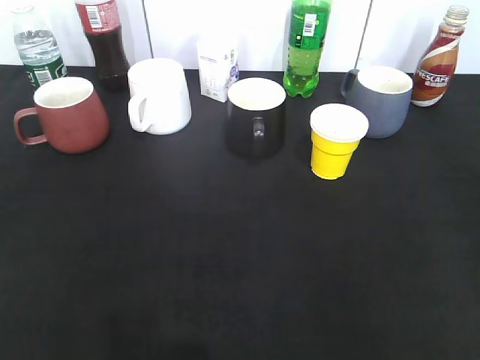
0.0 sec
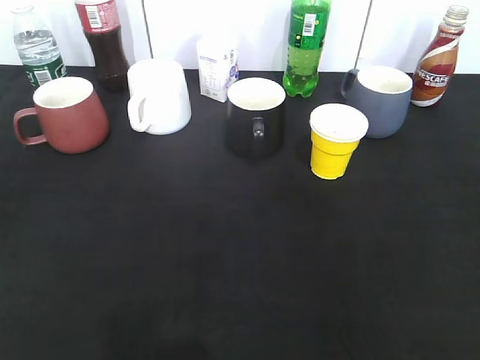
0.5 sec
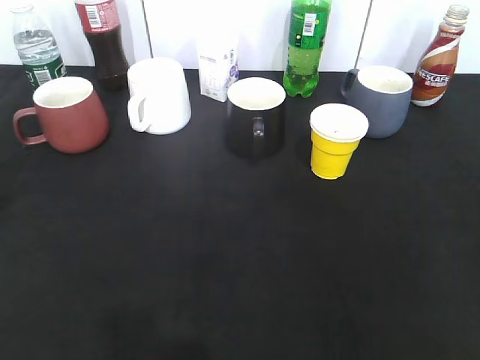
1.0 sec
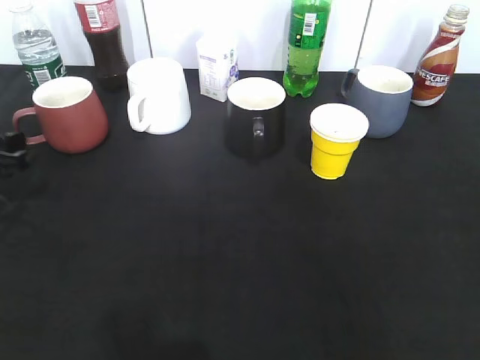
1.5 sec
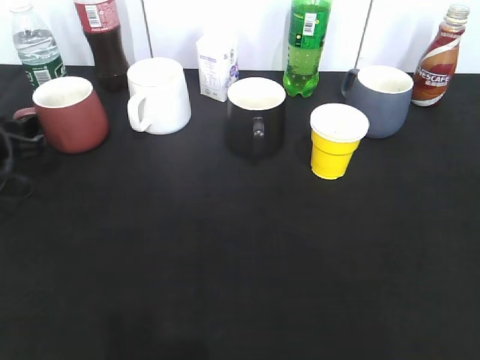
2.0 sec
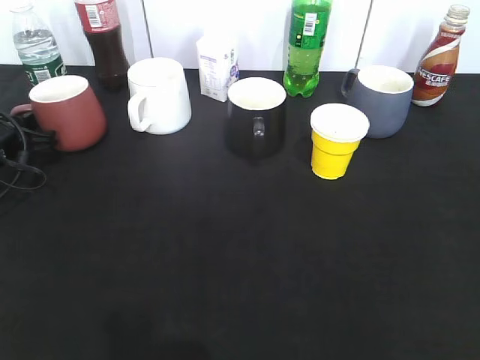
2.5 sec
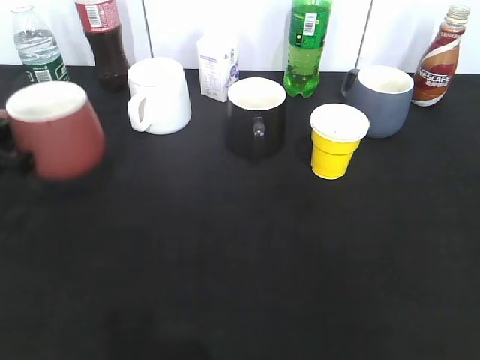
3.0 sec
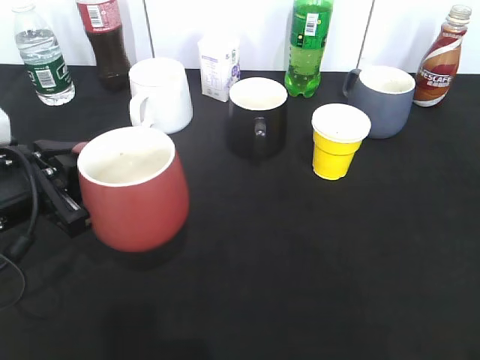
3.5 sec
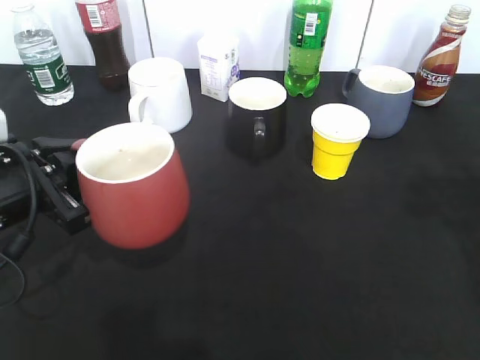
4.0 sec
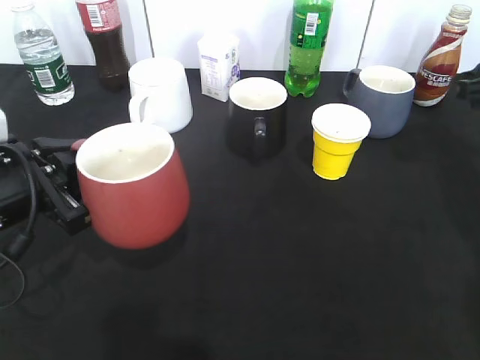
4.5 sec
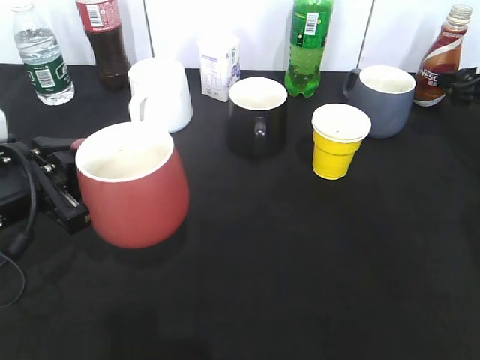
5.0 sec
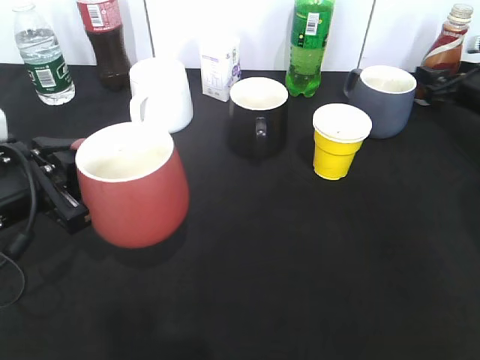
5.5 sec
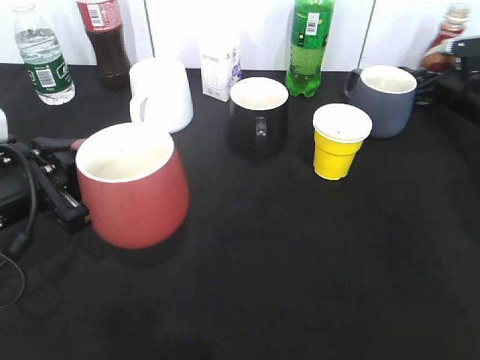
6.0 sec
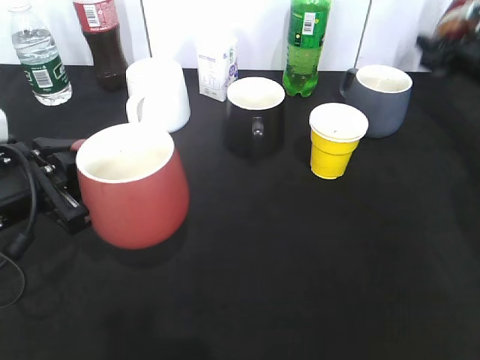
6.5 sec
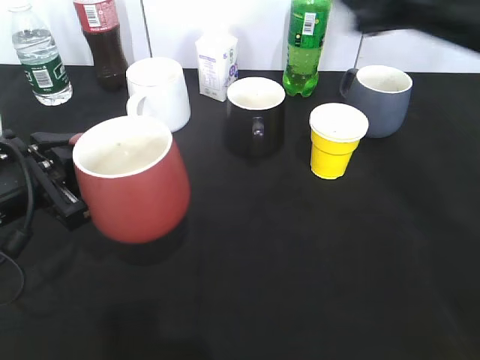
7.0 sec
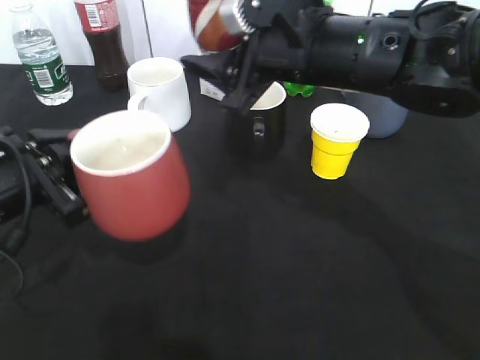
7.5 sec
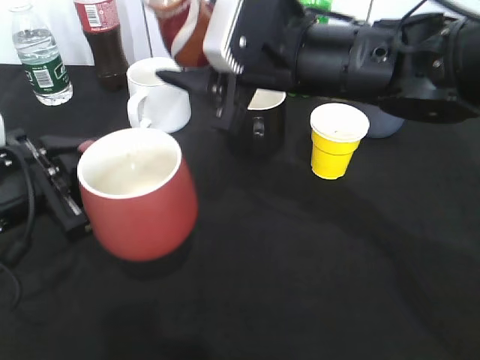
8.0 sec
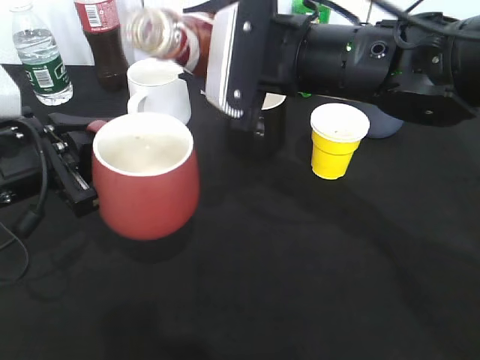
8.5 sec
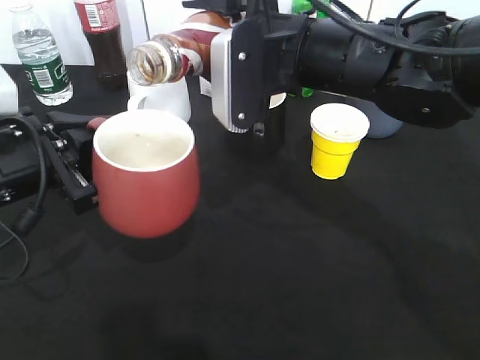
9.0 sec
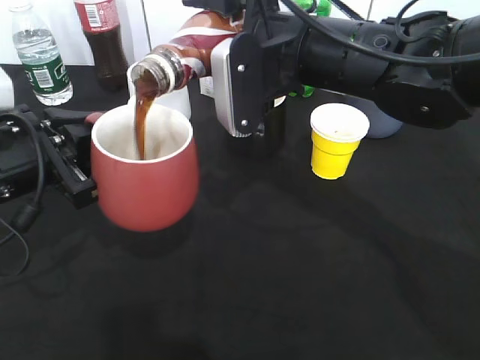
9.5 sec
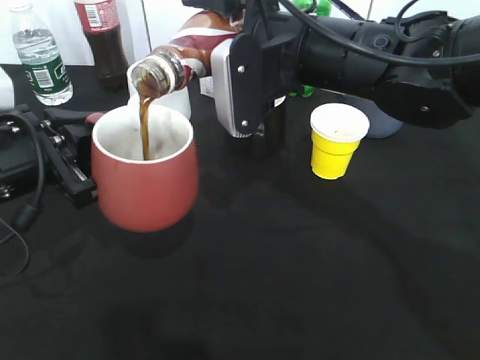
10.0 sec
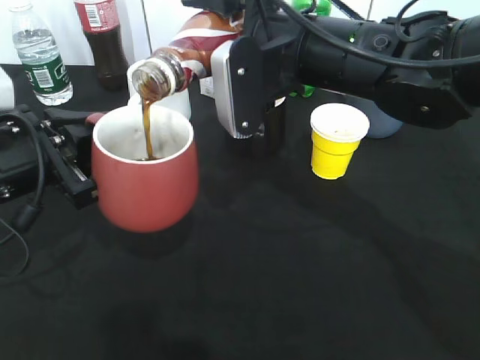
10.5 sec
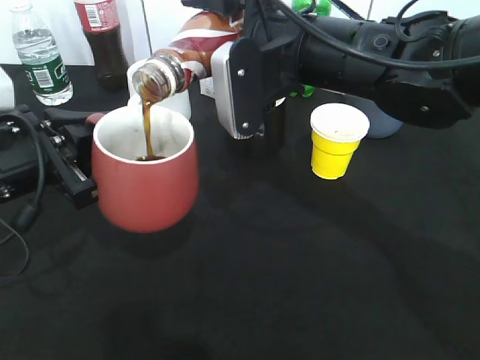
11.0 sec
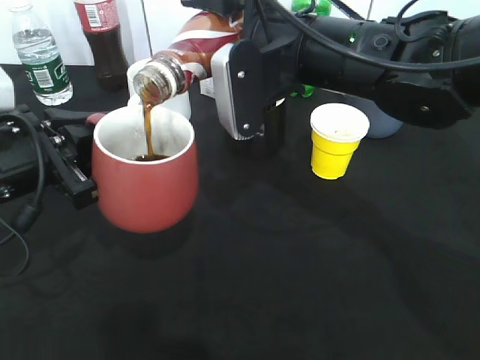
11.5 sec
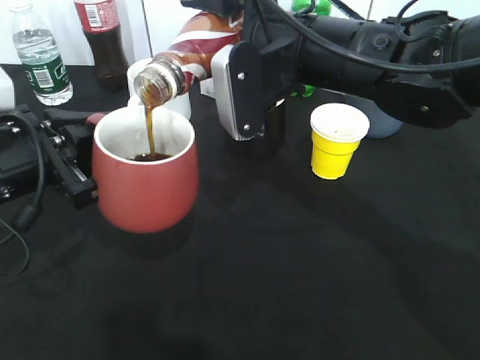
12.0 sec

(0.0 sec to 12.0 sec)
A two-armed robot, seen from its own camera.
Step, 1.5 sec - 2.5 sec: Grasp the red cup with left gripper.
Step, 3.0 sec - 4.0 sec: Lift the red cup with left gripper.
Step, 4.5 sec - 6.0 sec: Grasp the bottle with coffee with right gripper.
0.0 sec - 2.0 sec: The left gripper travels forward and downward by some 35 cm.
2.0 sec - 4.0 sec: The left gripper moves backward, to the right and upward, approximately 15 cm, and closes its fingers. Meanwhile the right gripper is displaced forward by roughly 20 cm, and closes up.
4.0 sec - 6.0 sec: The right gripper shifts approximately 35 cm forward and downward, and opens up.
6.0 sec - 8.0 sec: The right gripper heads to the left, backward and upward, covering approximately 40 cm, and closes its fingers.
10.0 sec - 12.0 sec: Neither gripper changes place.

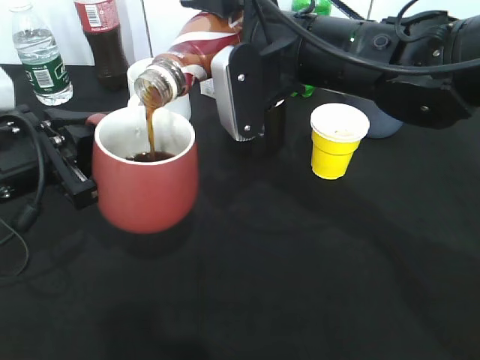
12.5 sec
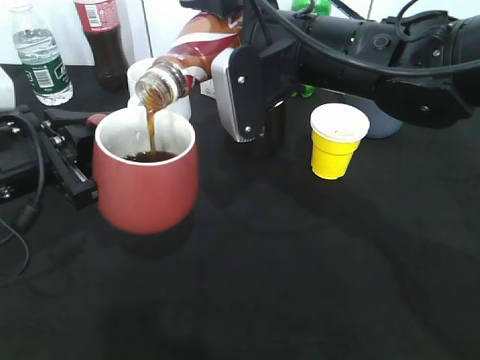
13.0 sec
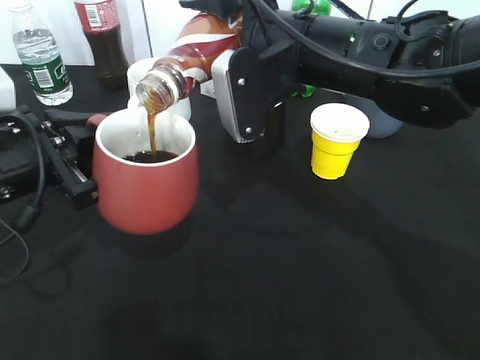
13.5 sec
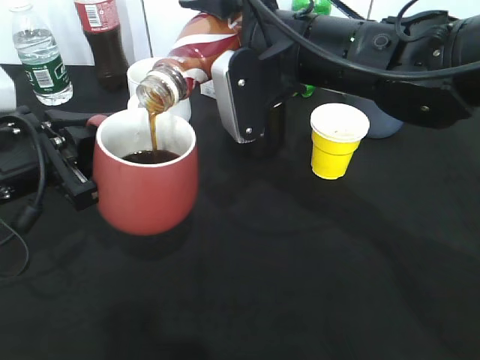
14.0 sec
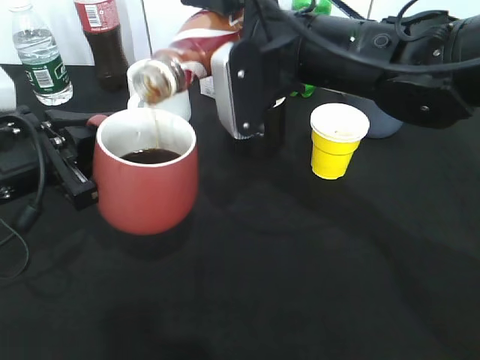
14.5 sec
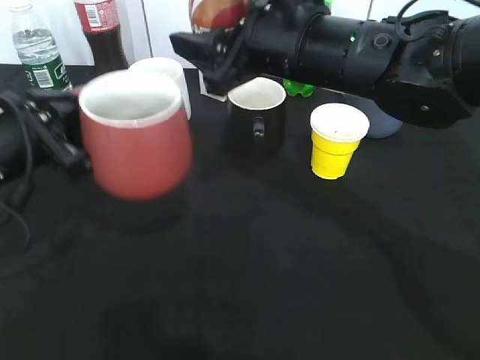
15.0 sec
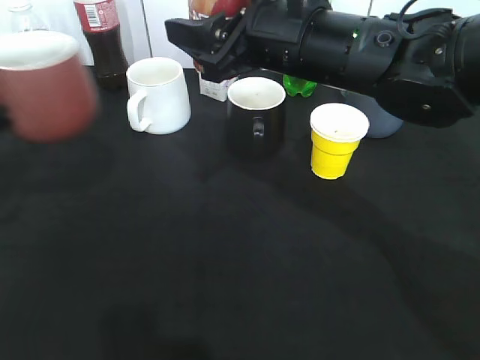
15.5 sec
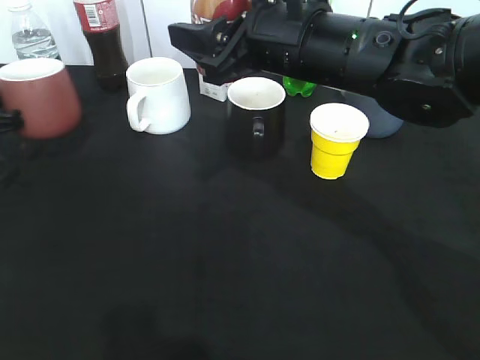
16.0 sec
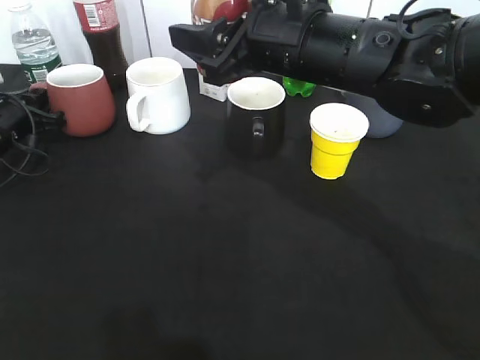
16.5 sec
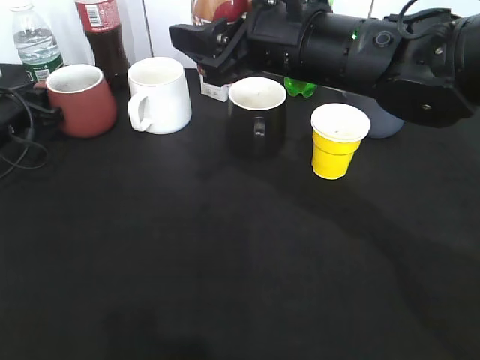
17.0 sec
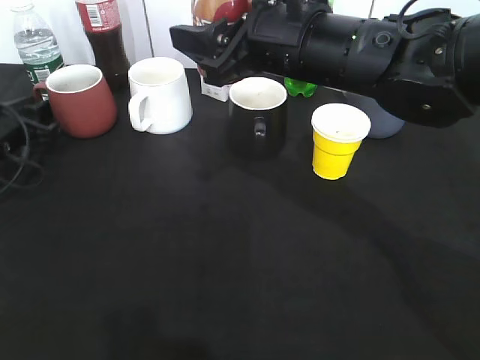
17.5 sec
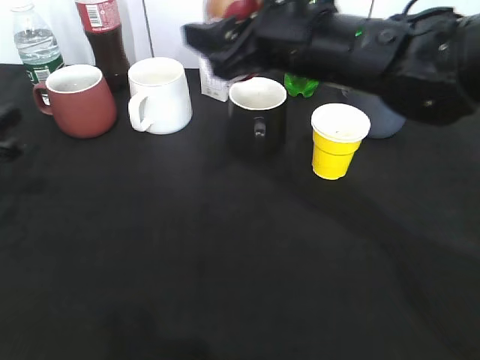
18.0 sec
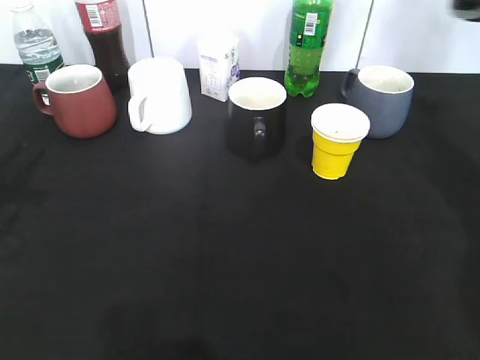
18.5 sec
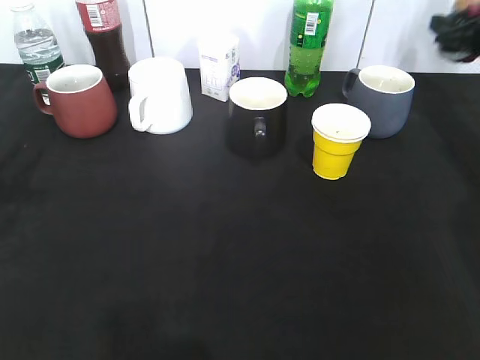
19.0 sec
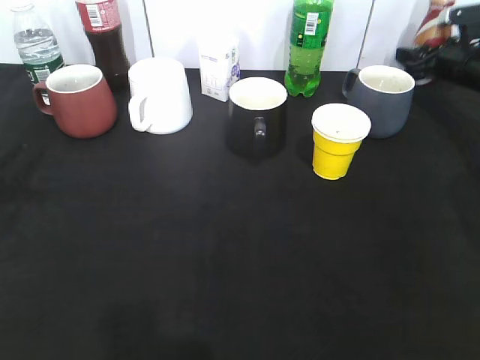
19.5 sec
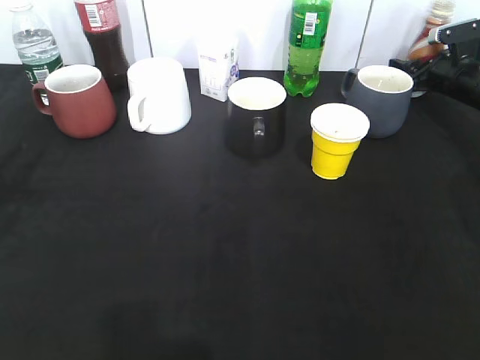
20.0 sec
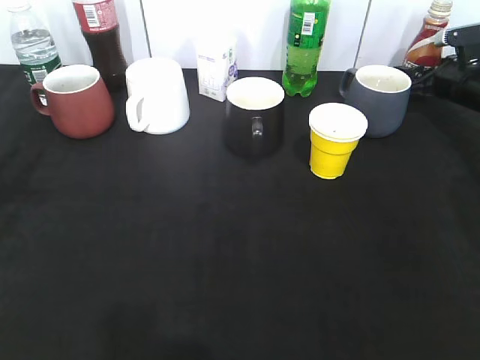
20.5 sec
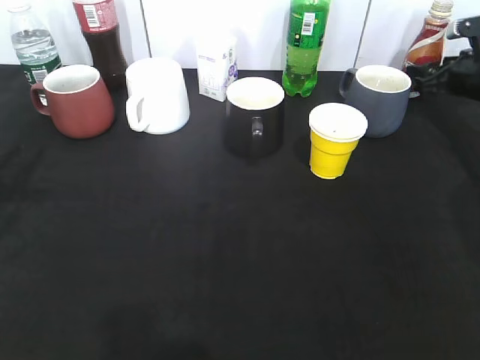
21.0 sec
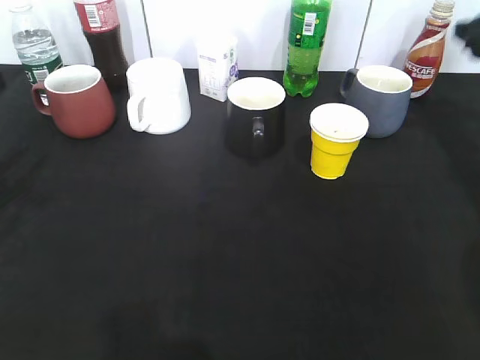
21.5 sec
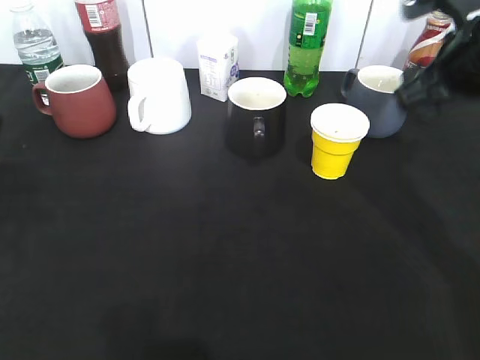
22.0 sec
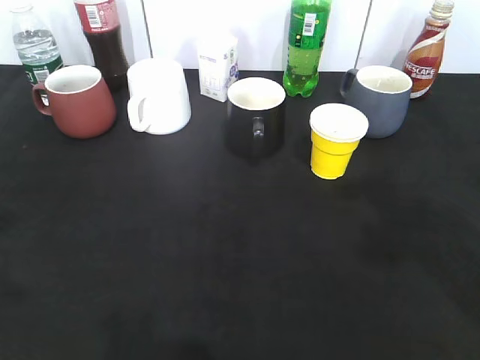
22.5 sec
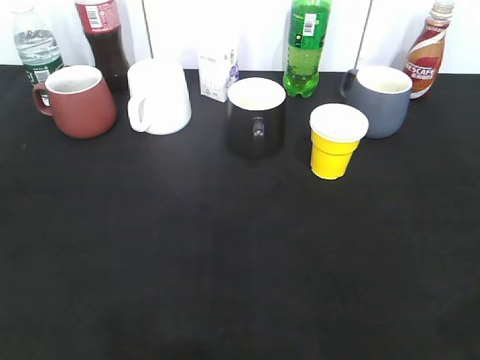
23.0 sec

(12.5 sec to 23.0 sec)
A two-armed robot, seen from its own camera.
Step, 12.5 sec - 14.5 sec: Pour the coffee from bottle to cup with right gripper.
Step, 15.0 sec - 17.0 sec: Place the red cup on the table with left gripper.
Step, 17.5 sec - 20.0 sec: Place the coffee bottle on the table with right gripper.
12.5 sec - 14.5 sec: Neither gripper changes place.
14.5 sec - 16.5 sec: The left gripper goes about 25 cm forward, to the left and downward.
16.5 sec - 19.0 sec: The left gripper moves backward and upward, some 20 cm, and opens its fingers, while the right gripper goes approximately 30 cm to the right and forward.
19.0 sec - 21.0 sec: The right gripper moves downward, roughly 5 cm, and opens up.
21.0 sec - 23.0 sec: The right gripper travels backward by about 40 cm. The left gripper moves backward, approximately 20 cm, and opens up.

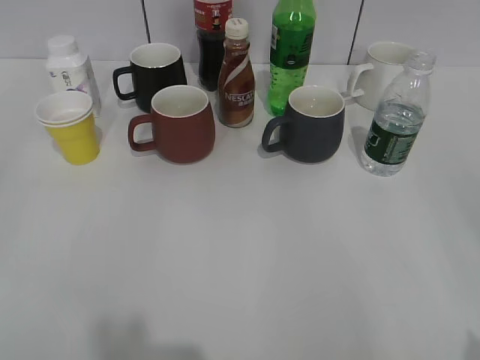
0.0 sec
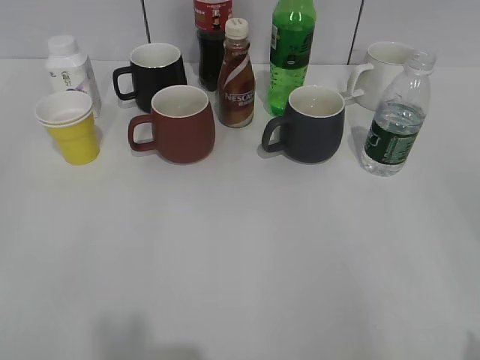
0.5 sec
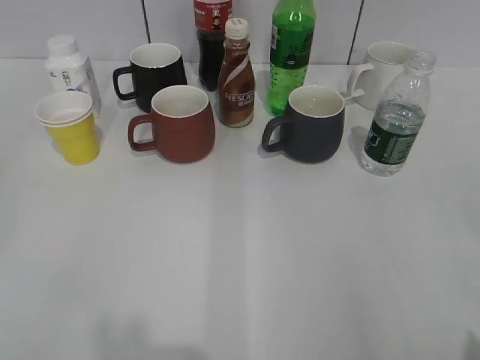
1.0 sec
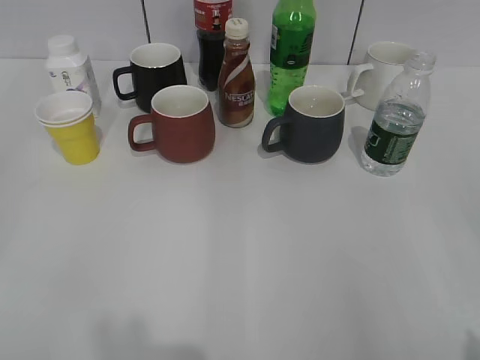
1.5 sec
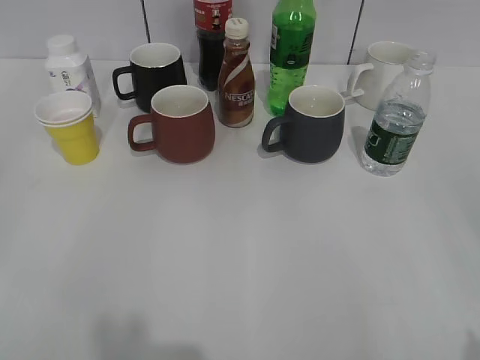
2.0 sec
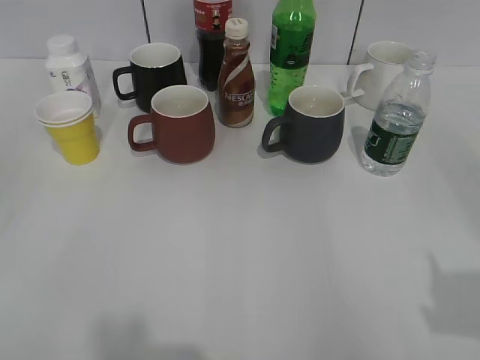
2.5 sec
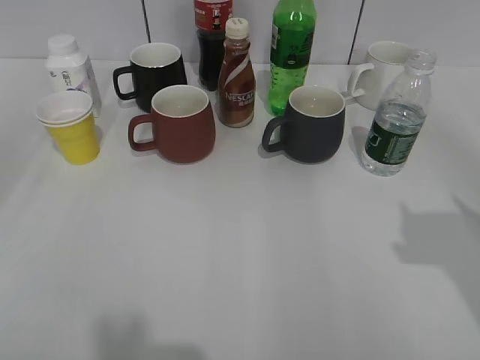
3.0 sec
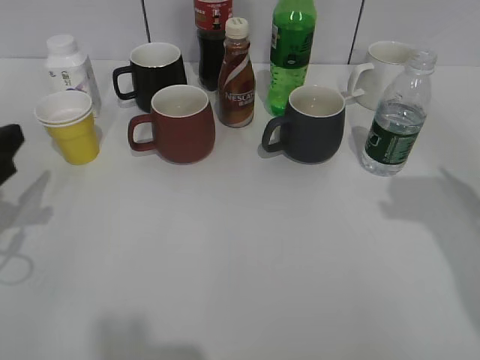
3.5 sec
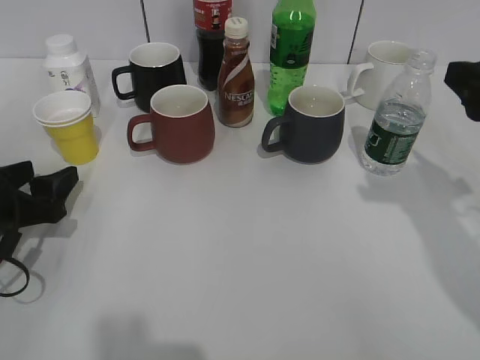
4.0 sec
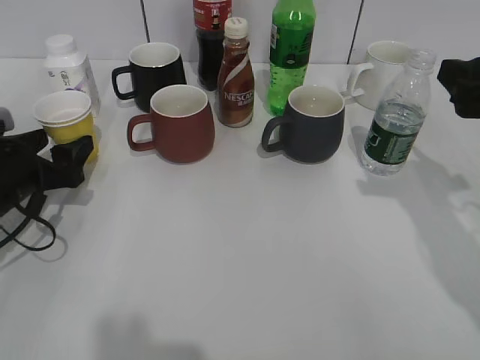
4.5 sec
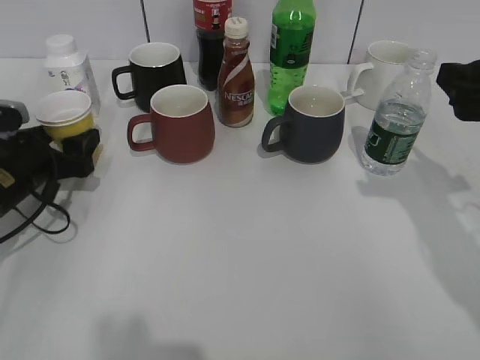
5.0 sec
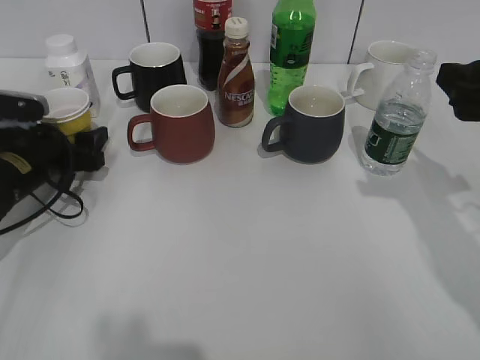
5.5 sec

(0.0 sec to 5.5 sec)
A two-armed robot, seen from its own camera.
2.0 sec - 3.5 sec: The left gripper travels forward and downward by approximately 25 cm. Meanwhile the right gripper heads forward, covering roughly 20 cm.
3.5 sec - 5.5 sec: The left gripper moves forward and downward, some 15 cm. Meanwhile the right gripper changes place by approximately 5 cm.
